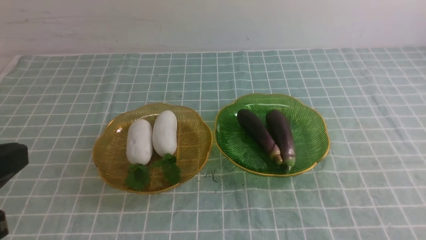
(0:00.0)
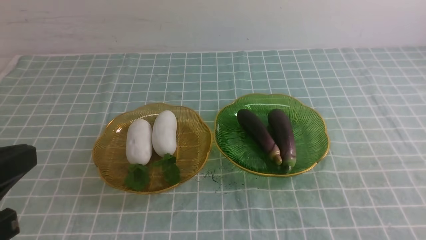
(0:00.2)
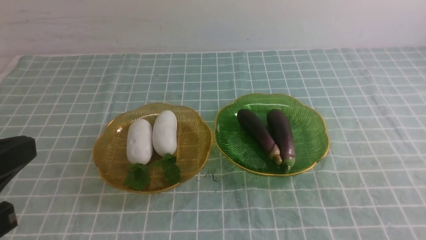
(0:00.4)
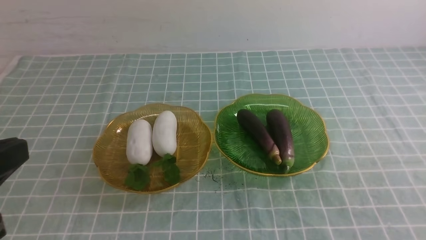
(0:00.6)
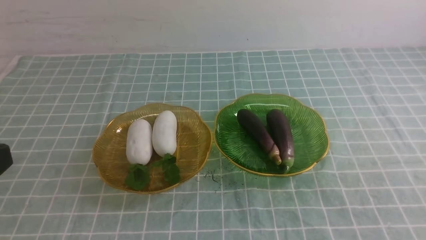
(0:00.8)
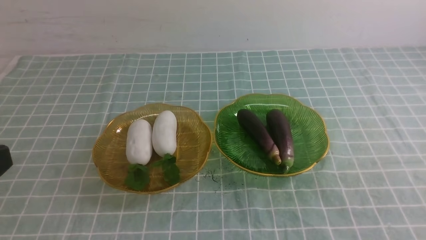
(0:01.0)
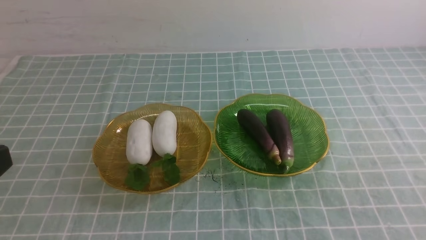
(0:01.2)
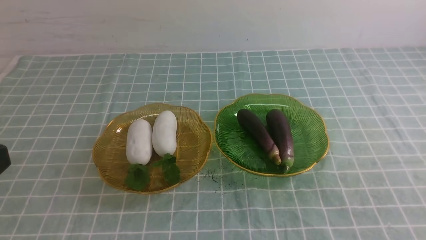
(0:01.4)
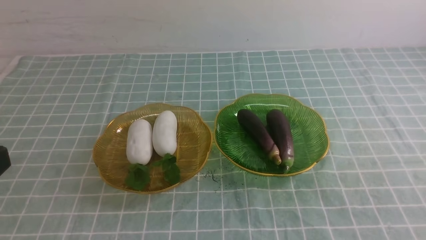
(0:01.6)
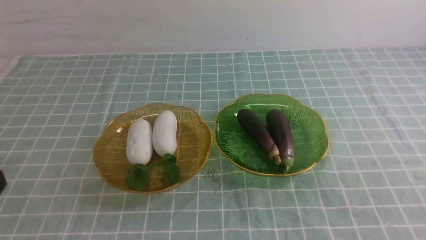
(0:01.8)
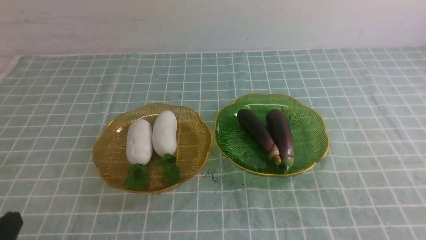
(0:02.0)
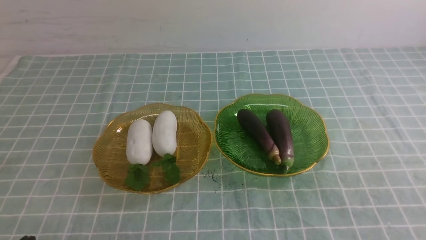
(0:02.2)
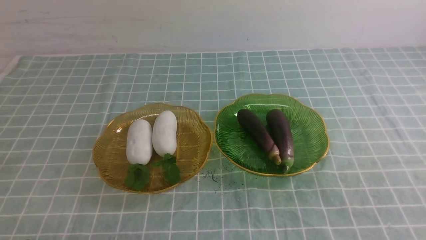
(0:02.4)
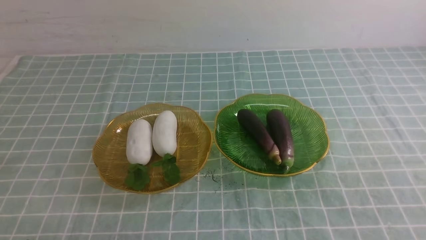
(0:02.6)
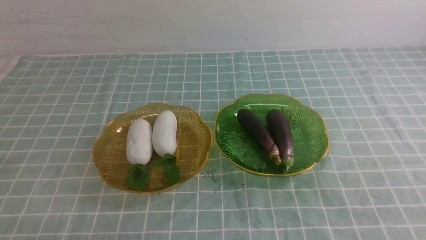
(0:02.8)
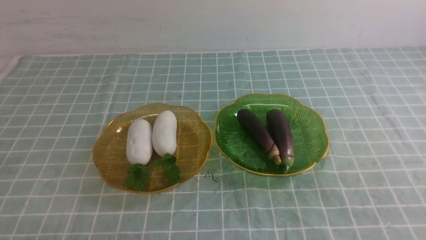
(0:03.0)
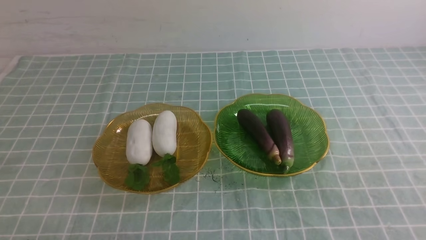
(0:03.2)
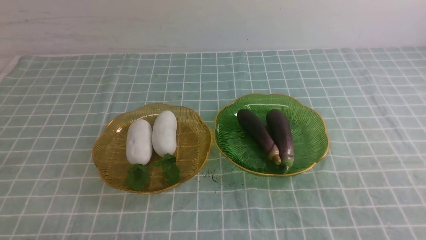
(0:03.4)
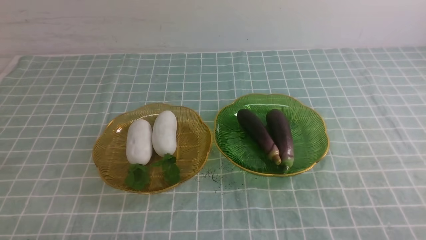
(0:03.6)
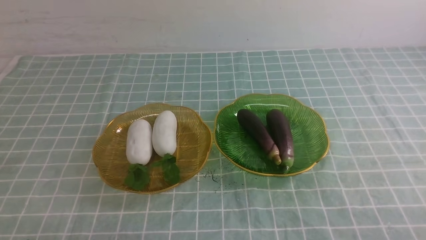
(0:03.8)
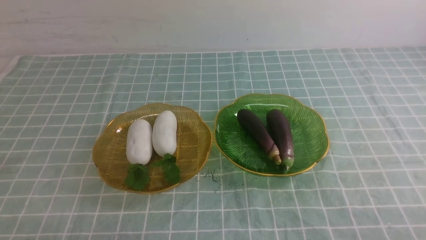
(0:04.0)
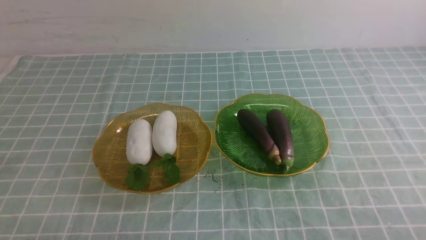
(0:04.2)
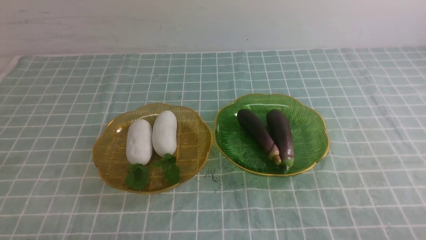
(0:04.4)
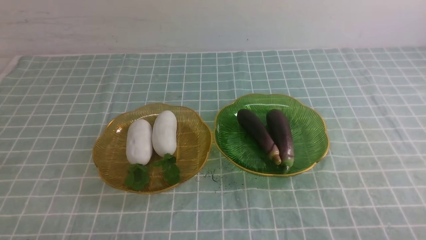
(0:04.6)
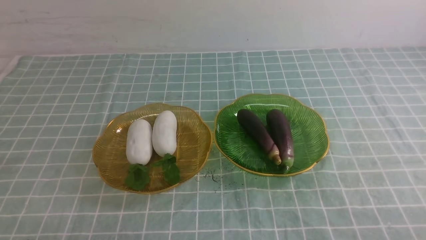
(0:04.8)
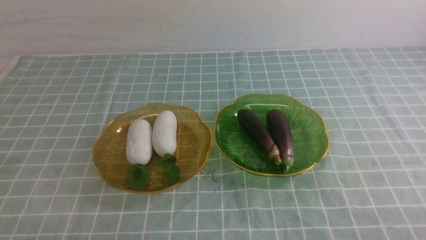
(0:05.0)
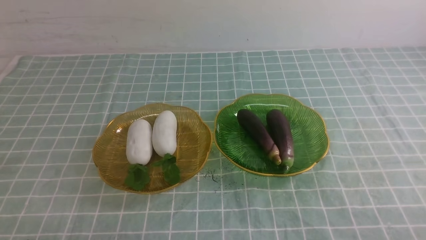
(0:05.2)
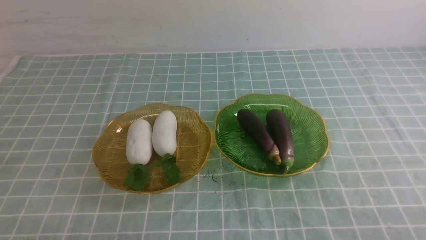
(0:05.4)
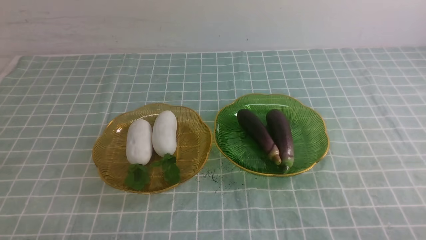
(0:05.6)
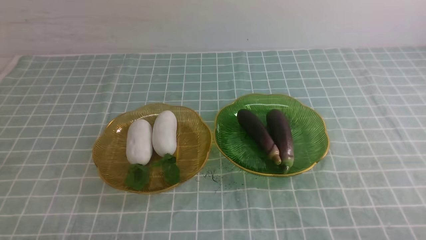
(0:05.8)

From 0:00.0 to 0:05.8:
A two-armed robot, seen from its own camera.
From 0:04.4 to 0:05.8: Both grippers stay put.
